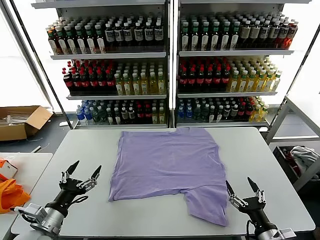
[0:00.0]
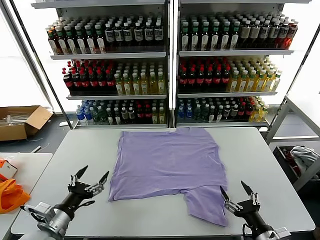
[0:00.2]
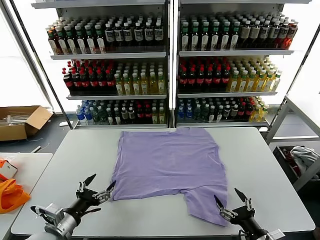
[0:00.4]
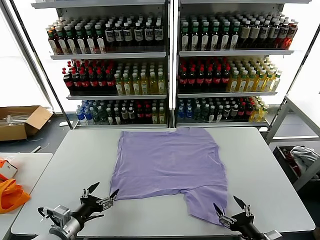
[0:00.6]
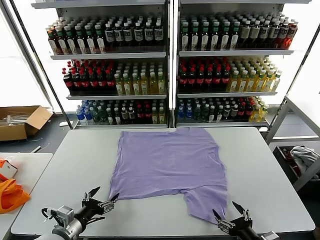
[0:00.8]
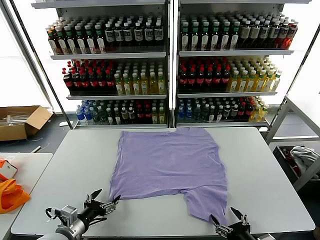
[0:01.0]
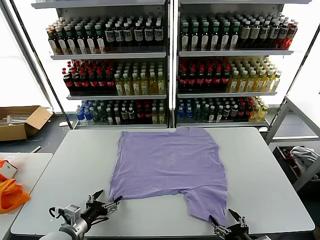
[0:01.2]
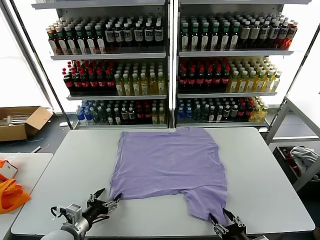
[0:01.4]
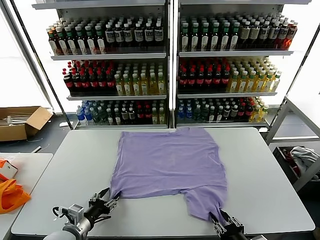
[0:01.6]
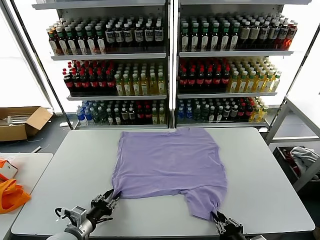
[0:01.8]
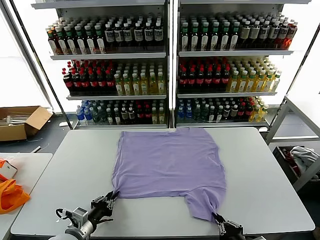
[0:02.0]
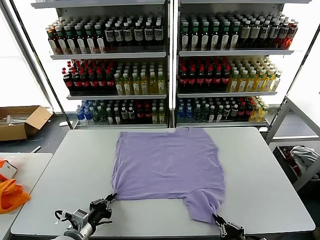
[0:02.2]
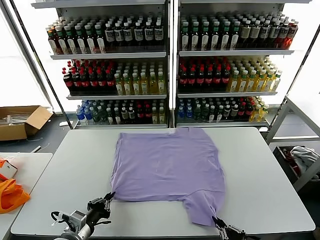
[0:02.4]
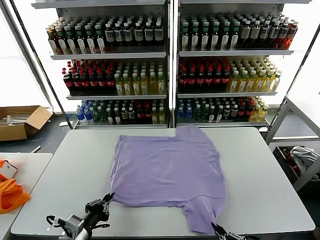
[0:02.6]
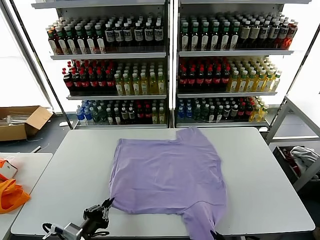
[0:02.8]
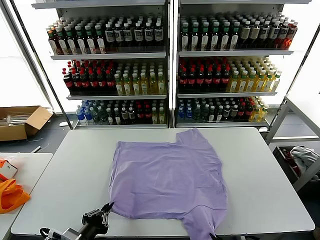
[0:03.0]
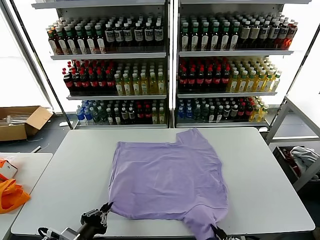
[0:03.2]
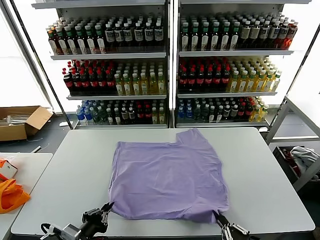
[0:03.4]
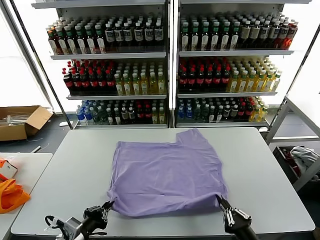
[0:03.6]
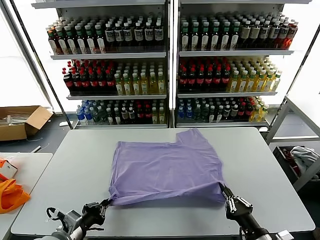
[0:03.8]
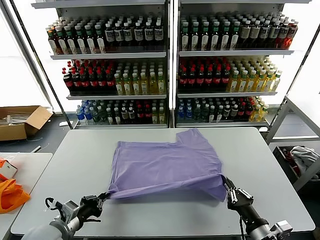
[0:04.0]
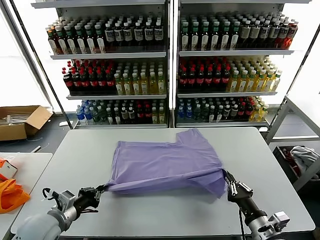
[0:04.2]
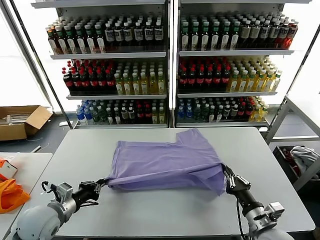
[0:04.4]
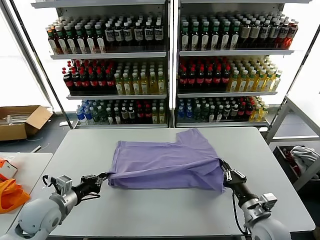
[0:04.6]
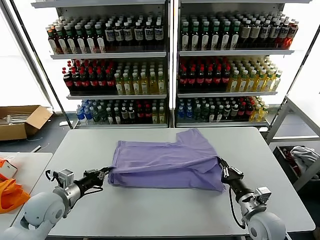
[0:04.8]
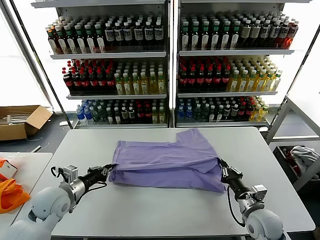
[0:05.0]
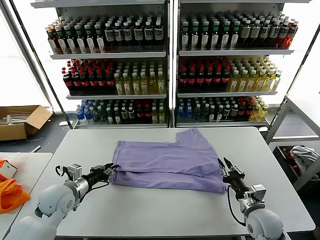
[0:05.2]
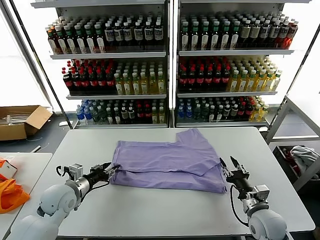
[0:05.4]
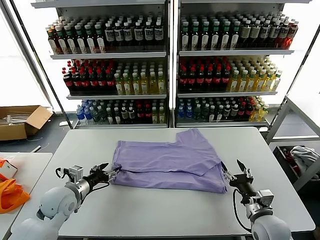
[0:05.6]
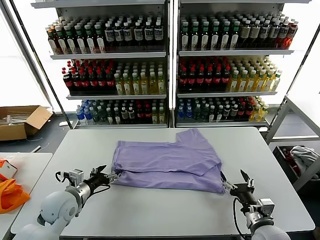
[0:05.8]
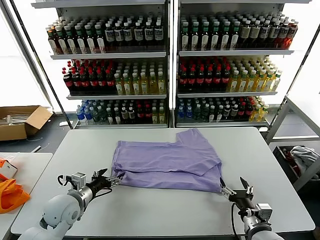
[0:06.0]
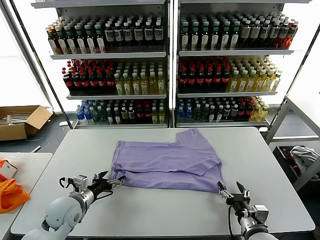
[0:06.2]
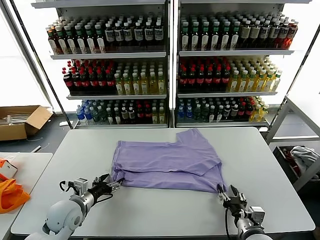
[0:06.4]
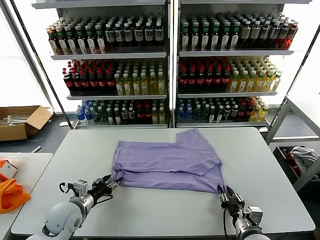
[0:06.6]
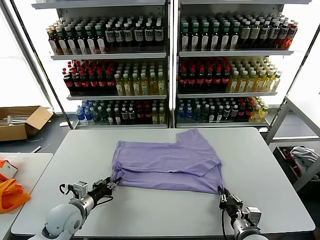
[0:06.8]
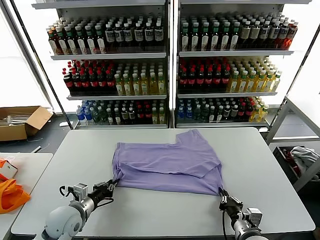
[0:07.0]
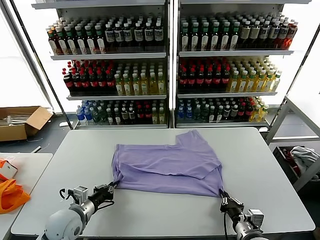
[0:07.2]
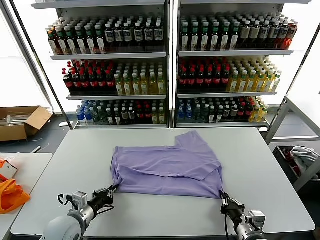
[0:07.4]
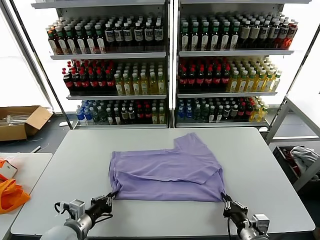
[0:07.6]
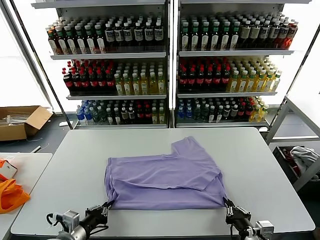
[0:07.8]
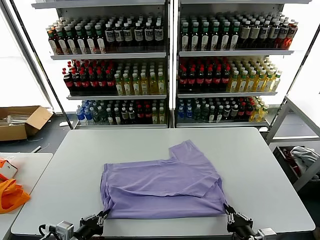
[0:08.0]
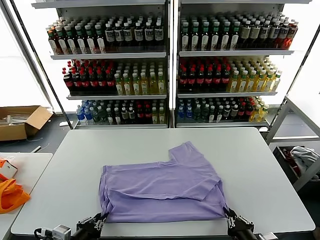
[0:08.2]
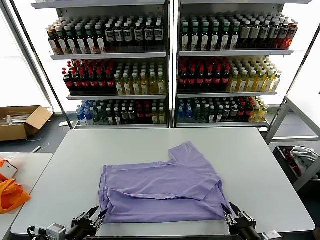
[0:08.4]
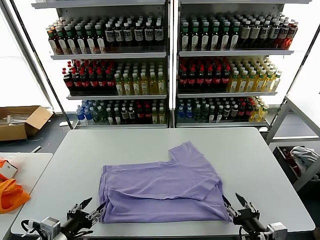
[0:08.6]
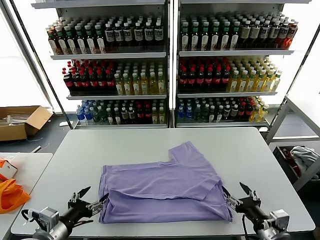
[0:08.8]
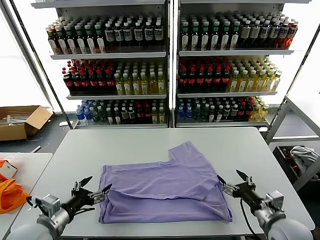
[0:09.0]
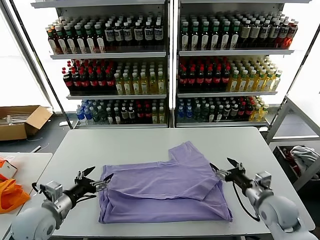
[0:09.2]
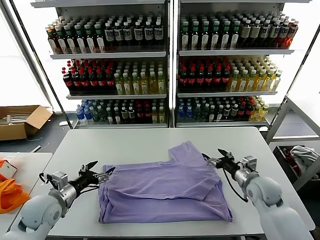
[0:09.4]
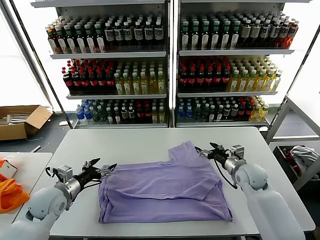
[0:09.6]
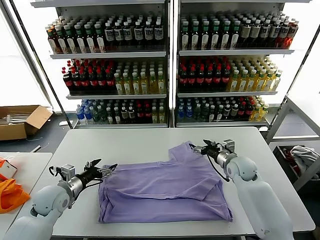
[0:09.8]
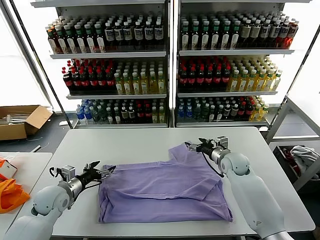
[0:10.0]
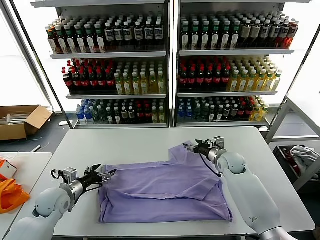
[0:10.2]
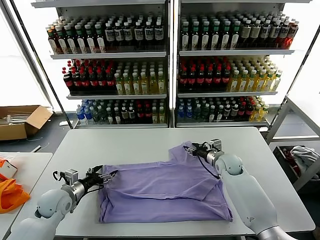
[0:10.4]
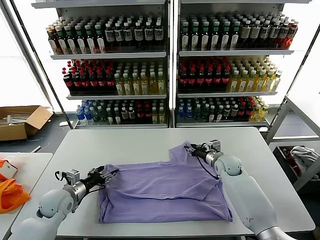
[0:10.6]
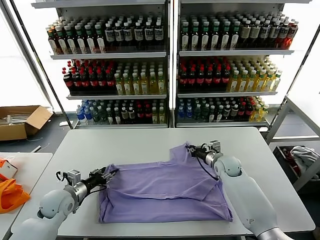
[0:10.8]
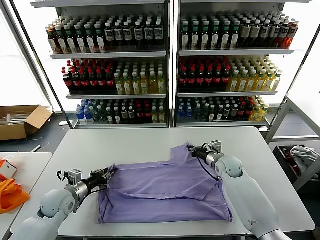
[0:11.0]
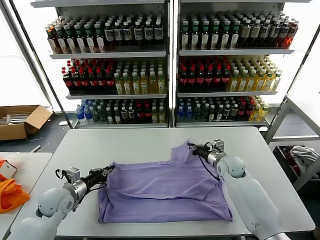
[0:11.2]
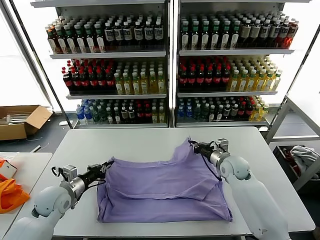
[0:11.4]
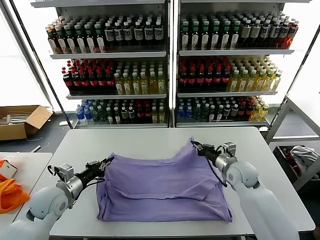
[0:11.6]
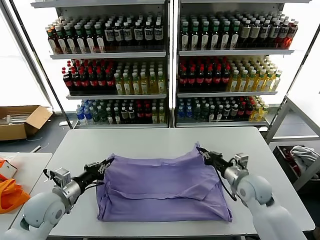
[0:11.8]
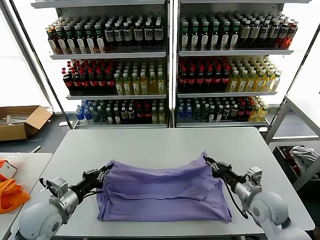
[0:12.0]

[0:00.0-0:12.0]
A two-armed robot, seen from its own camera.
Task of the whole recording: fold and organize the clothes.
Step, 0.0 to 2.4 s: use both grippers simultaneously to clamp the lower edge of the clothing fabric.
Step, 2.6 to 5.6 s: use both grippers to drag the lower edge of the fabric forward and fold it over the upper edge.
Step, 5.8 to 8.4 s: Drag the clothes downward with both gripper.
Step, 8.6 to 11.0 s: use both grippers simultaneously to clamp the upper edge of the clothing fabric.
1.6 to 3.0 s: The right gripper heads backward, covering roughly 10 cm. The left gripper goes approximately 10 cm backward and upward, and closes its fingers.
3.0 to 4.4 s: The right gripper moves forward, some 20 cm, while the left gripper shifts approximately 15 cm forward and to the left.
4.4 to 6.0 s: The left gripper shifts by approximately 5 cm, and opens up. The right gripper opens up.
6.0 to 7.6 s: The right gripper changes place by roughly 5 cm, and closes its fingers, while the left gripper goes approximately 10 cm backward, and closes its fingers.
7.6 to 9.0 s: The right gripper shifts approximately 10 cm forward and to the right, and opens its fingers. Meanwhile the left gripper travels upward by some 5 cm, moves roughly 10 cm backward and comes back, and opens up.
9.0 to 10.4 s: The right gripper moves forward, about 25 cm, and closes its fingers, while the left gripper heads forward and downward, covering about 15 cm.
10.4 to 12.0 s: The left gripper goes some 10 cm backward and upward, and closes up, while the right gripper moves backward, some 20 cm, and closes its fingers.

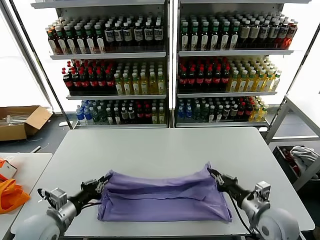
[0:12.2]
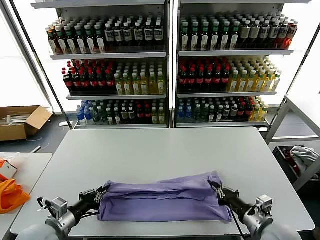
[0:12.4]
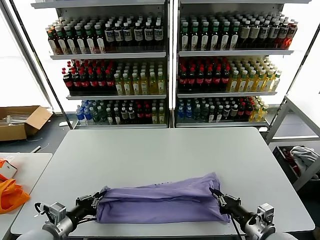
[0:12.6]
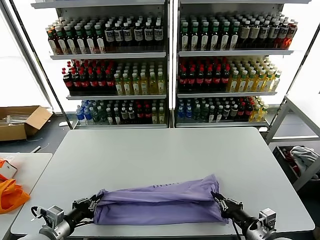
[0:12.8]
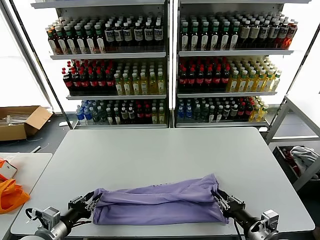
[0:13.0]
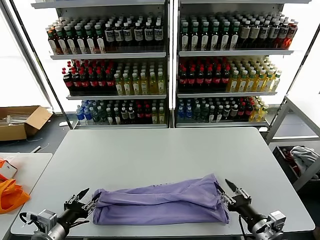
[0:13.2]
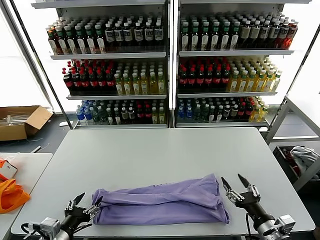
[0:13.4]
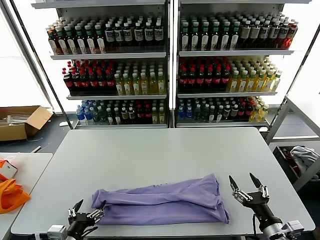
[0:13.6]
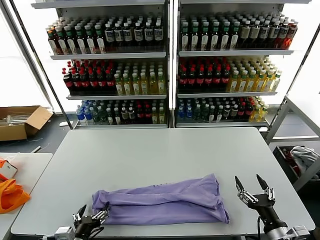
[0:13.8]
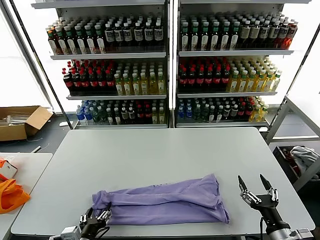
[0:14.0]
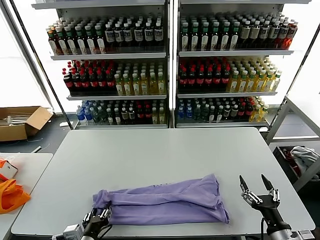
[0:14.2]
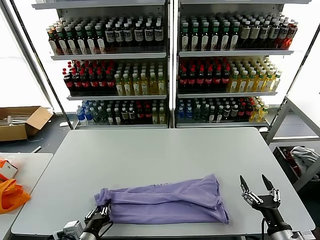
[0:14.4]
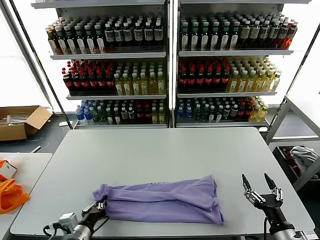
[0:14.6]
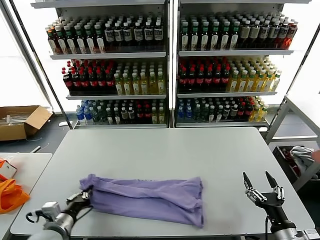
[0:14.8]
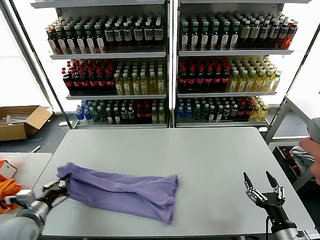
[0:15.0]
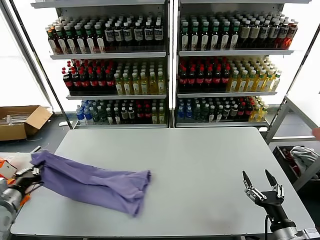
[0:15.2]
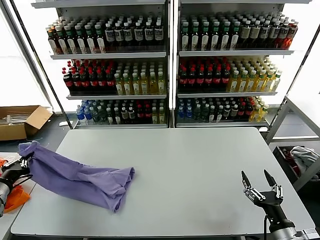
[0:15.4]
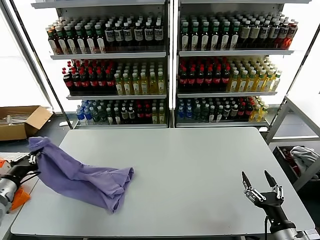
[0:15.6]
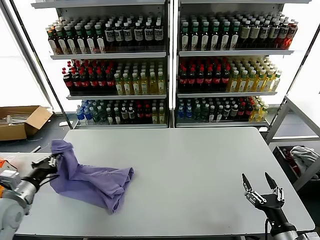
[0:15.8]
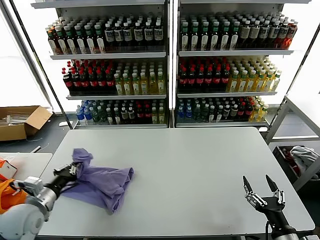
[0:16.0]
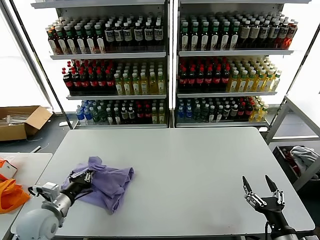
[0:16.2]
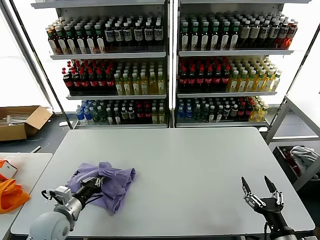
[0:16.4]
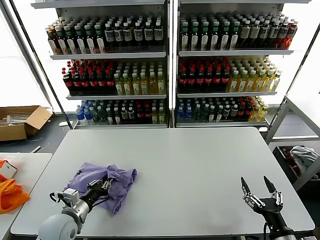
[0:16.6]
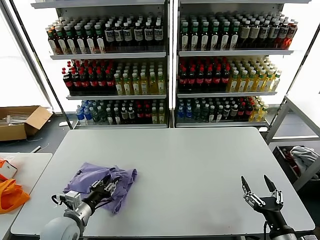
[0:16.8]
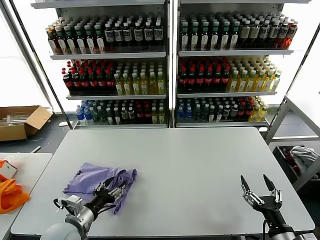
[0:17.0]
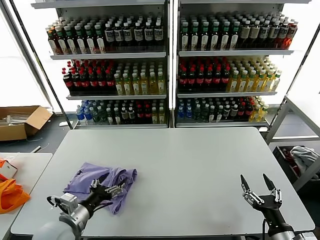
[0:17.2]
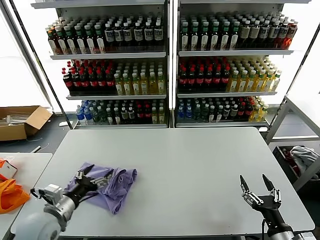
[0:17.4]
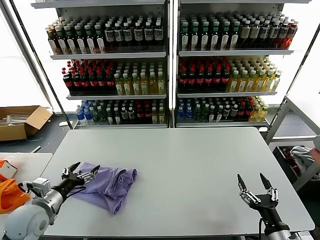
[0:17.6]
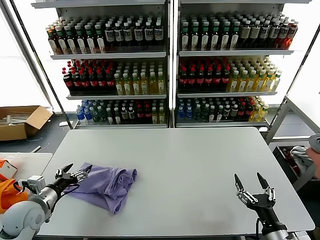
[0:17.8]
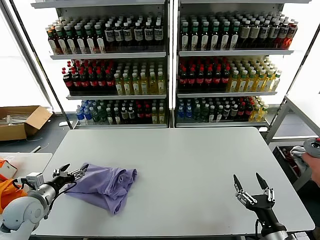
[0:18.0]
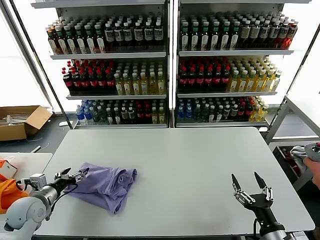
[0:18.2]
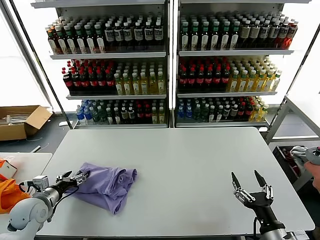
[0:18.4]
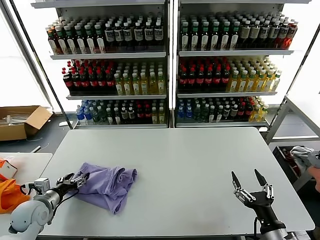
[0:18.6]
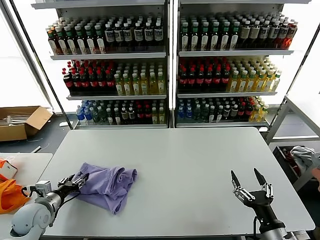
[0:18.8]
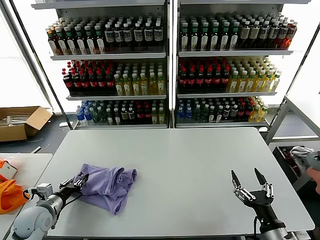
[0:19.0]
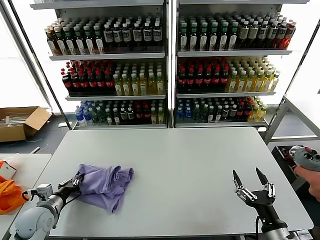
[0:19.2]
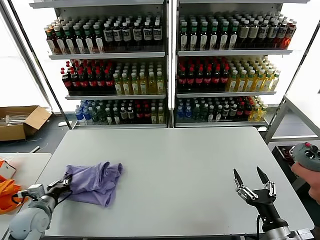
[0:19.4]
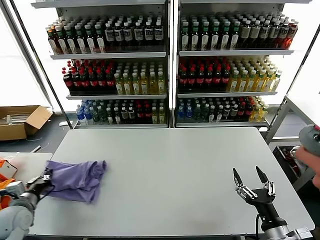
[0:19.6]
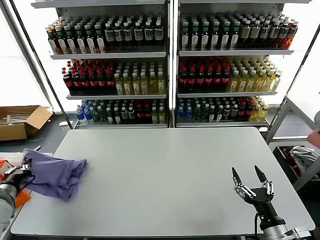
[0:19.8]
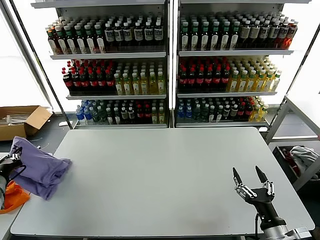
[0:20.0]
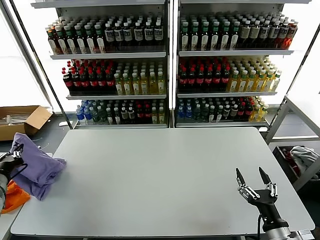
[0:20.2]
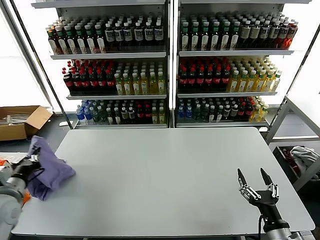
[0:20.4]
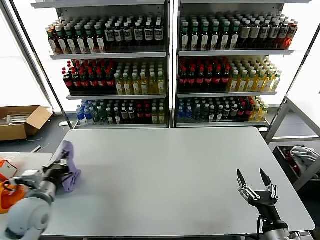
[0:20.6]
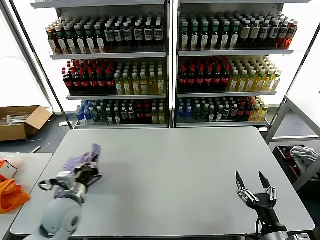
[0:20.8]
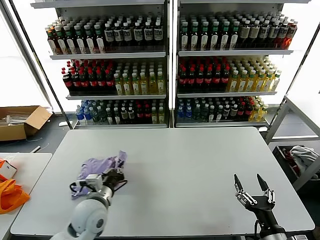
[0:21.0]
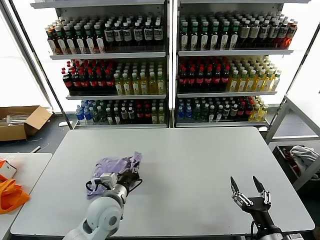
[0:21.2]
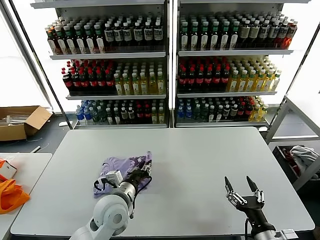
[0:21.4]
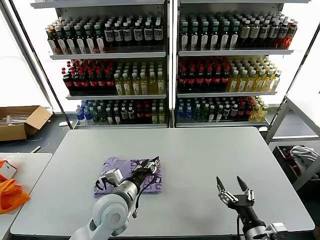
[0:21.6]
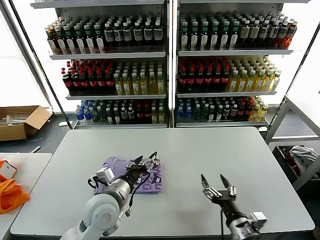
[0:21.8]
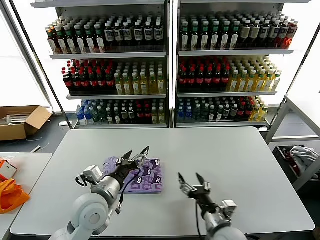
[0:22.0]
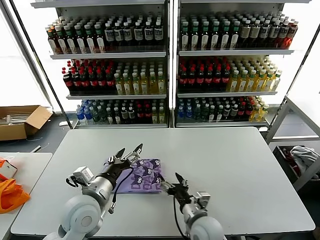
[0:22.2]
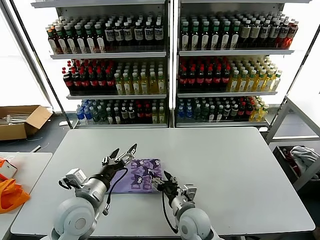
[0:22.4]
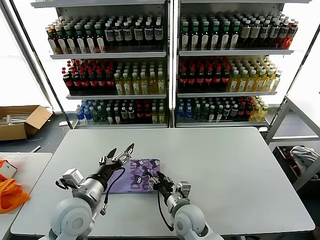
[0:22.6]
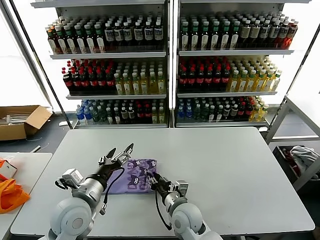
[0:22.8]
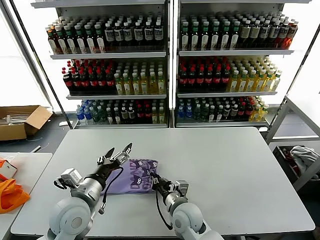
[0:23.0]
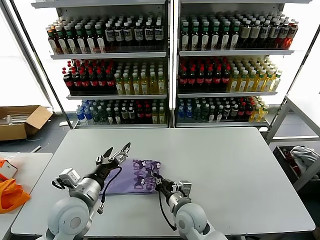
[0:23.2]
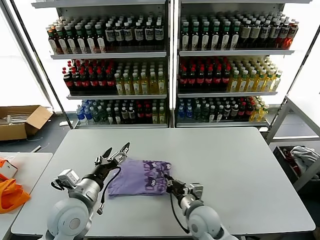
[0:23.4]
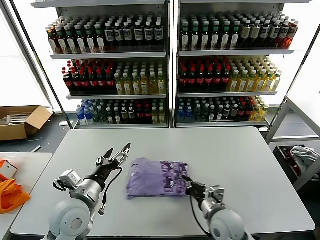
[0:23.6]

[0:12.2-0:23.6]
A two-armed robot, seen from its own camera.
Task of the whole recording: fold and organize the clothes.
Step, 13.4 to 14.4 s: use the left gripper to clamp the left edge of the fabric.
Step, 14.6 to 17.0 s: use the left gripper to drag the left edge of the fabric to the left and folds it over the right edge.
Step, 17.4 to 21.6 s: Flip the folded clothes over with left gripper.
12.2 to 13.6 s: Both grippers travel together backward, approximately 10 cm. The left gripper opens up. Meanwhile the right gripper opens.
13.6 to 15.0 s: The left gripper heads to the left and forward, covering about 15 cm, and closes up.
15.0 to 16.4 s: The left gripper travels to the left and back again, about 10 cm each way.
16.4 to 17.8 s: The left gripper heads to the left, covering about 5 cm, and opens up.
17.8 to 19.4 s: The left gripper is displaced downward by roughly 5 cm, and closes its fingers.
19.4 to 20.8 s: The left gripper moves to the right and upward, about 15 cm.
20.8 to 22.2 s: The right gripper travels to the left and forward by roughly 20 cm; the left gripper moves to the right, some 10 cm, and opens up.
22.2 to 23.6 s: The right gripper closes.
